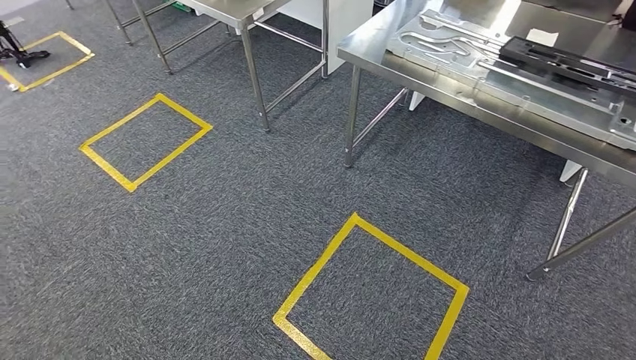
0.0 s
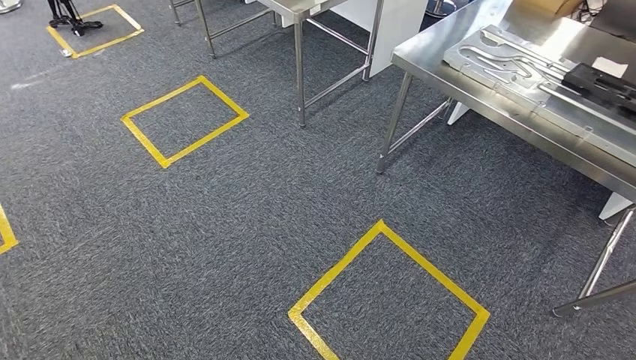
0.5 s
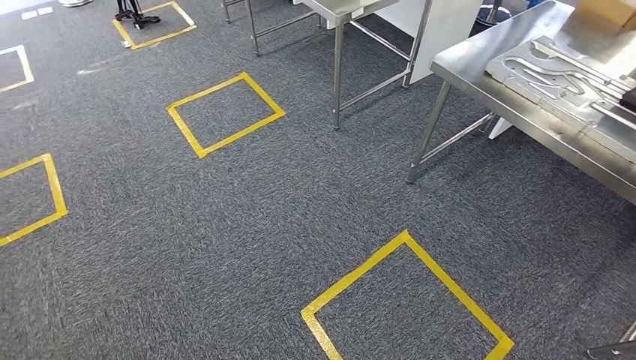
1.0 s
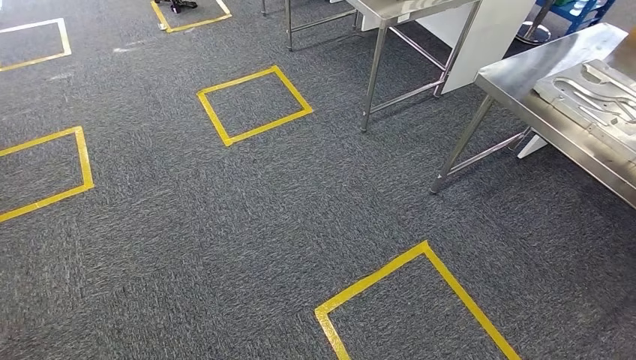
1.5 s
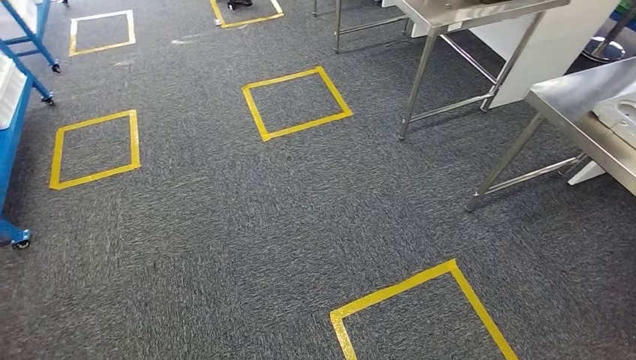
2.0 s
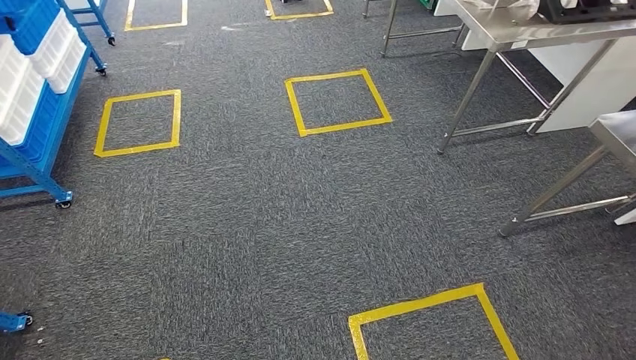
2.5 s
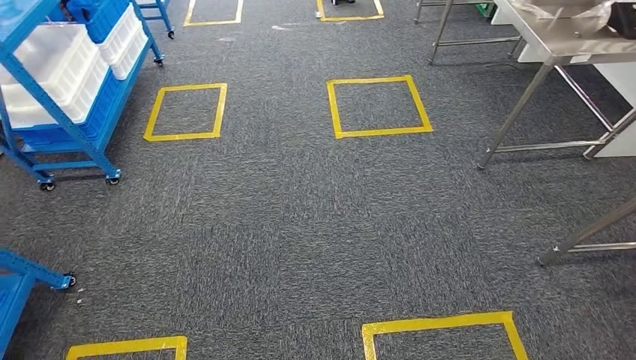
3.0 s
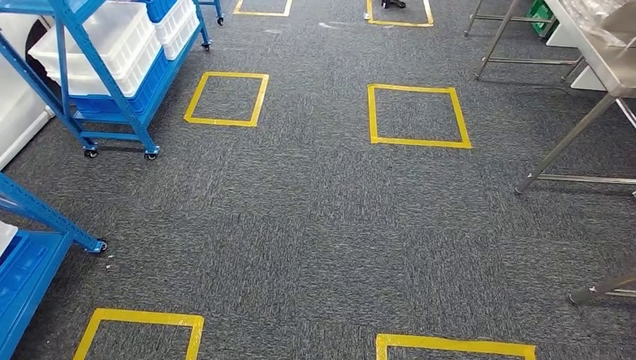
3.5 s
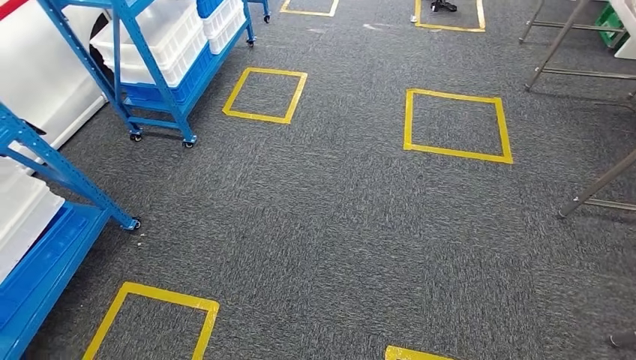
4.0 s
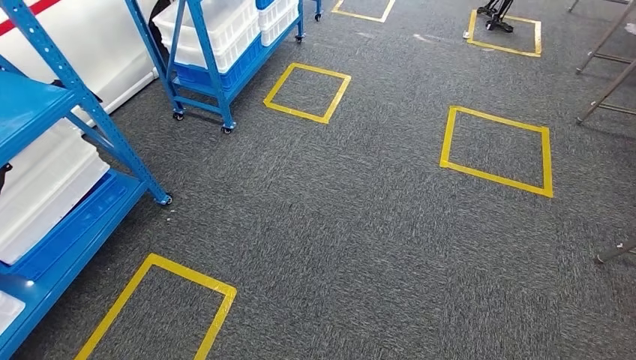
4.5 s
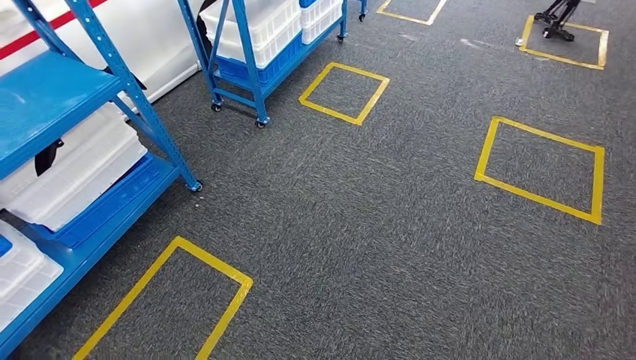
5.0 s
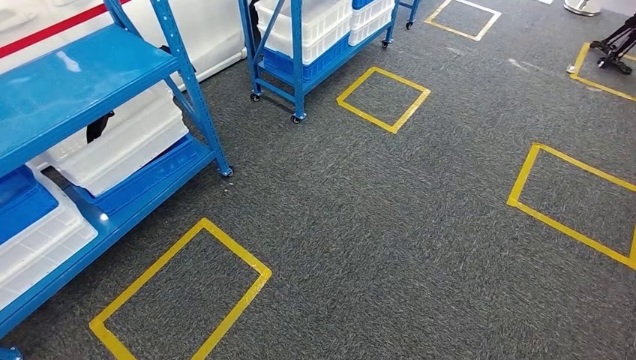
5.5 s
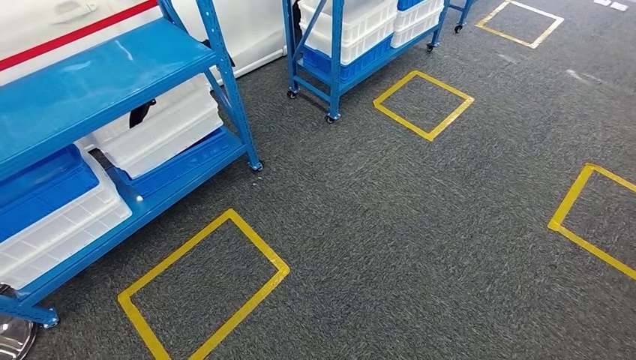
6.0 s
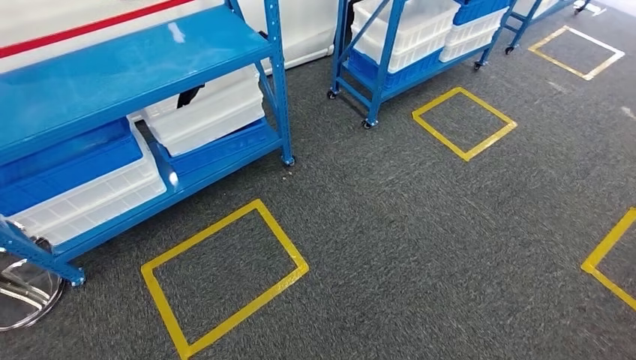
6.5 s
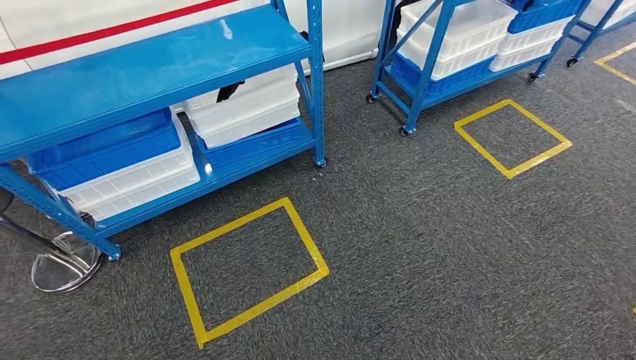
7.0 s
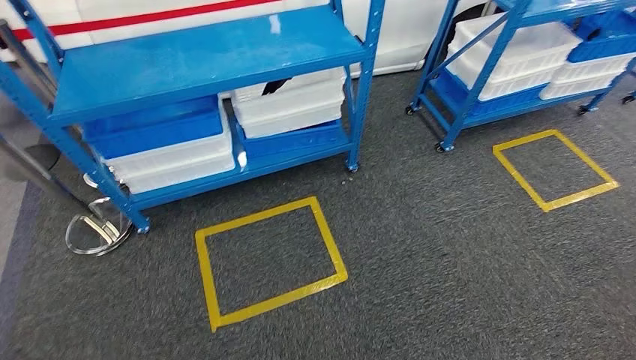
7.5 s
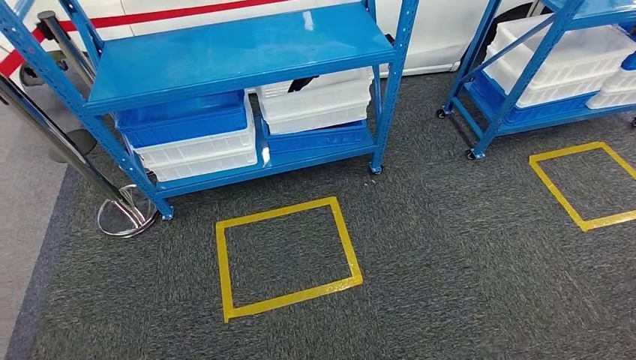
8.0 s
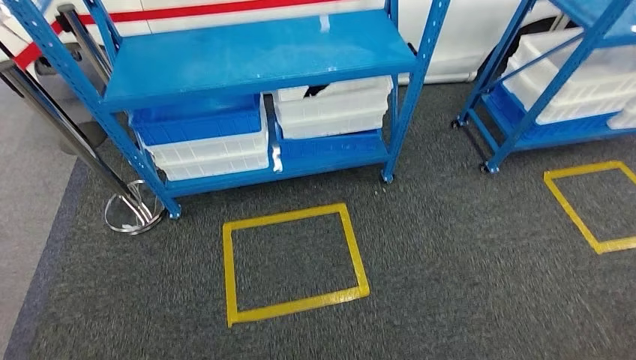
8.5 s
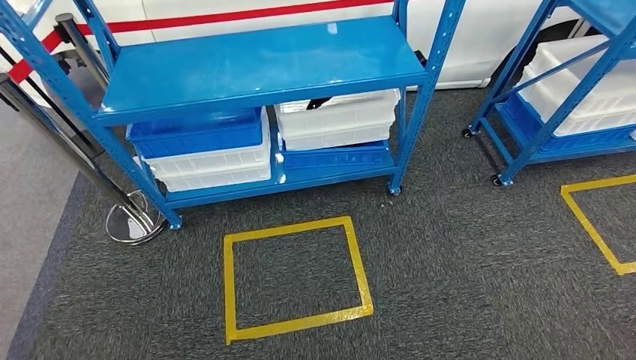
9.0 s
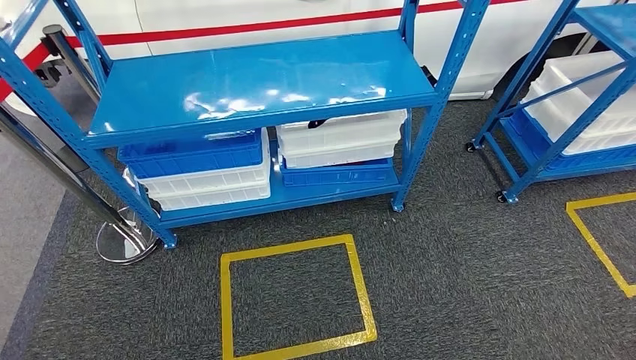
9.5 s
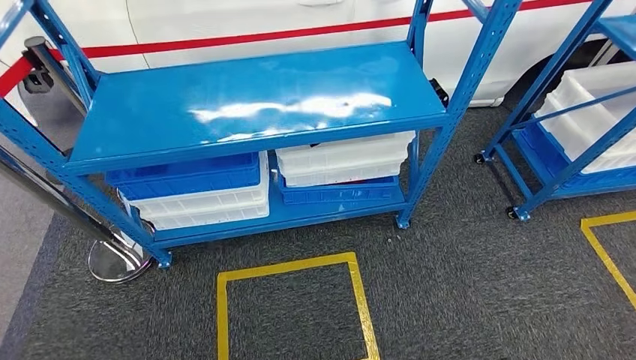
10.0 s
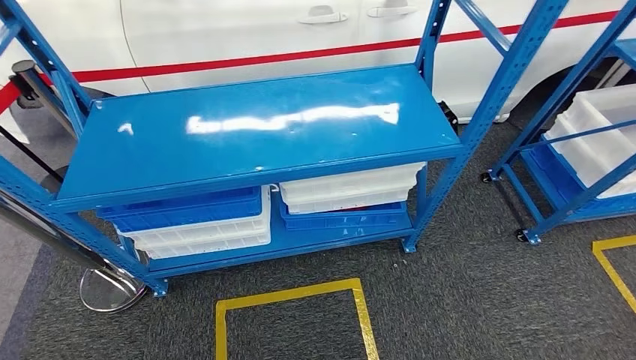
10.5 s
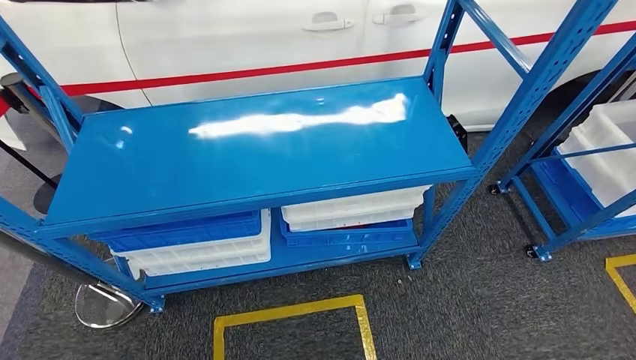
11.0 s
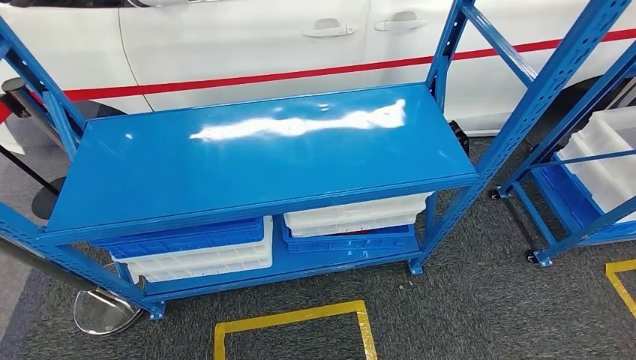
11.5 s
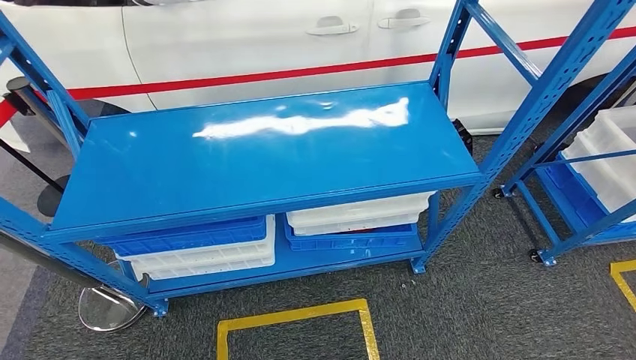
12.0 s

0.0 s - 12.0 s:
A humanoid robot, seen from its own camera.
Step, 0.0 s - 12.0 s: Move to the initial position of the shelf.

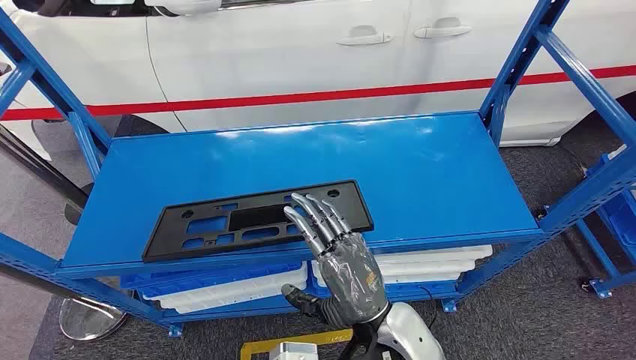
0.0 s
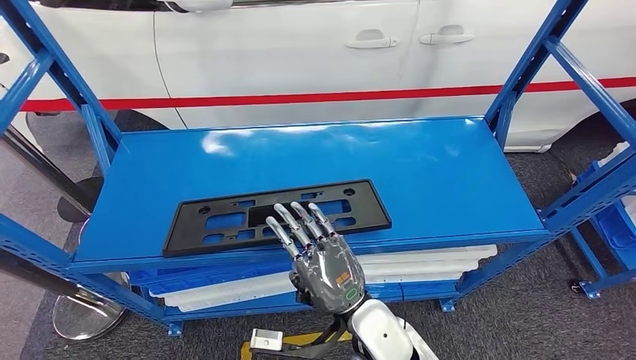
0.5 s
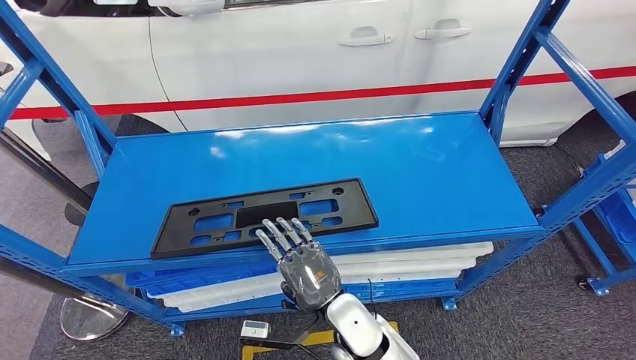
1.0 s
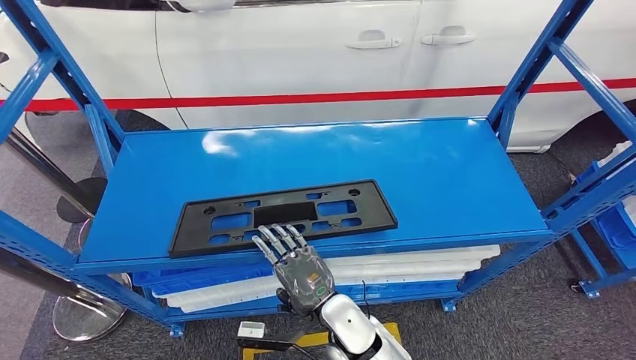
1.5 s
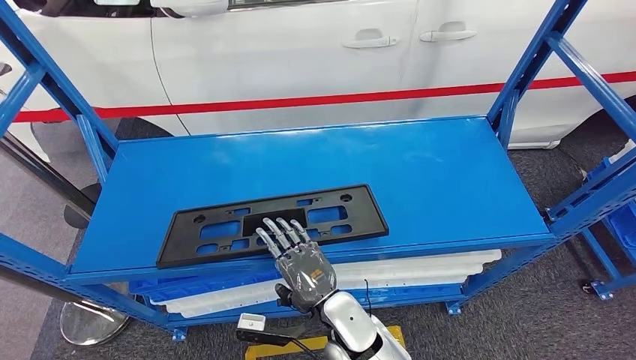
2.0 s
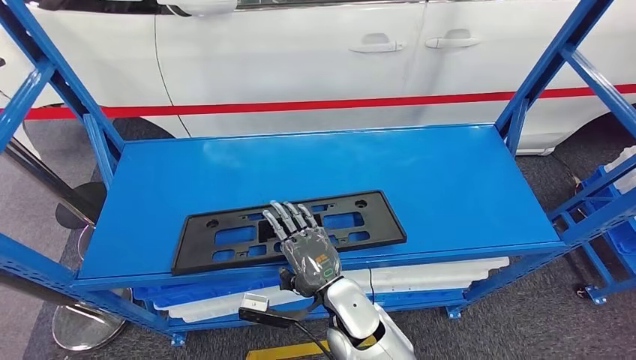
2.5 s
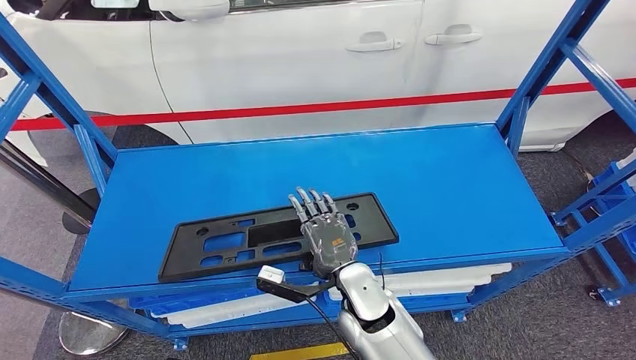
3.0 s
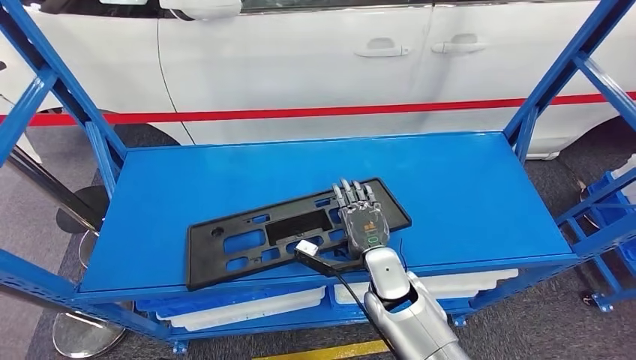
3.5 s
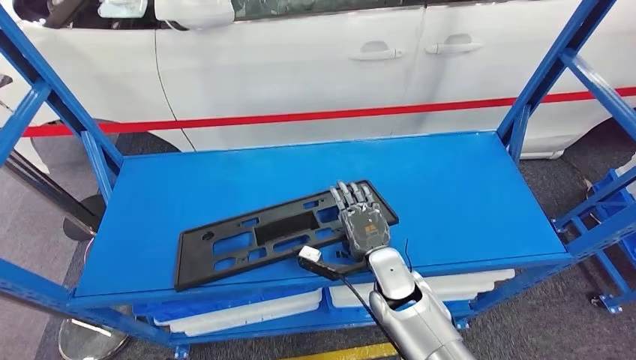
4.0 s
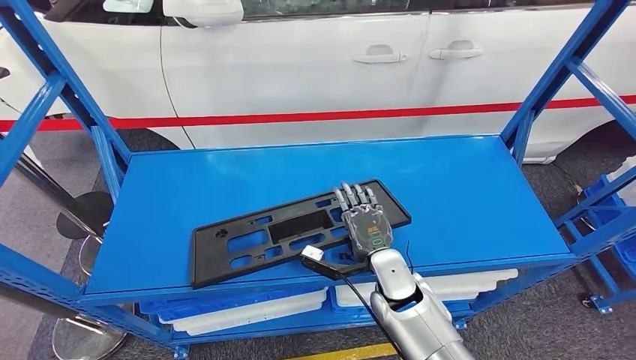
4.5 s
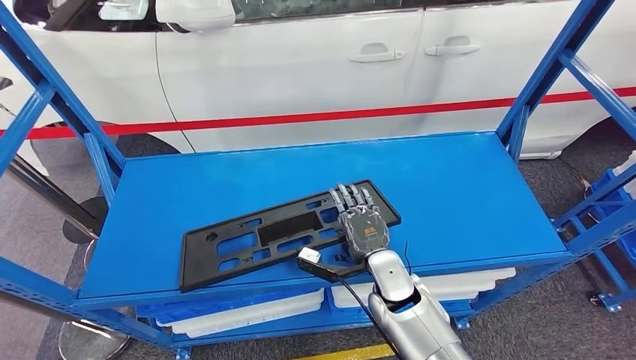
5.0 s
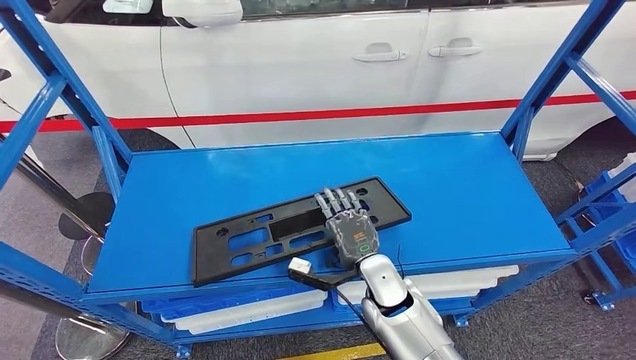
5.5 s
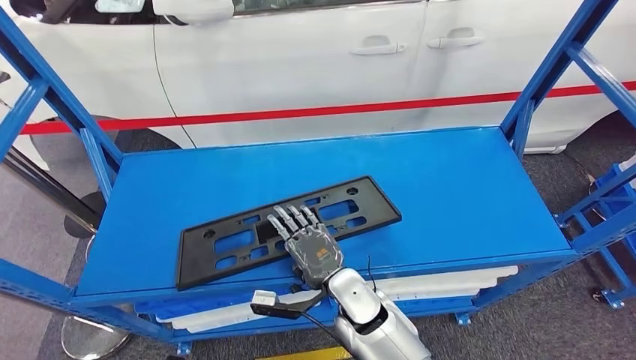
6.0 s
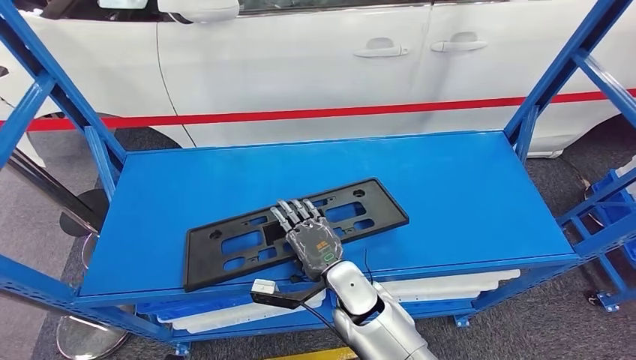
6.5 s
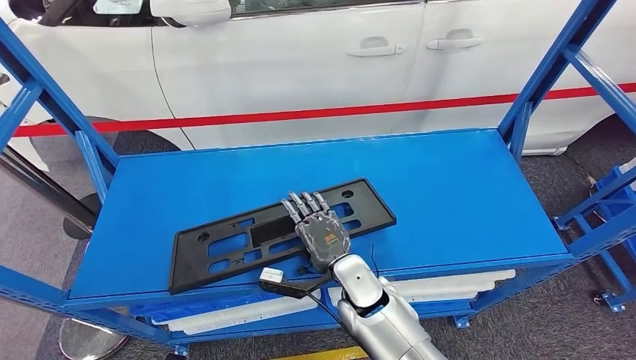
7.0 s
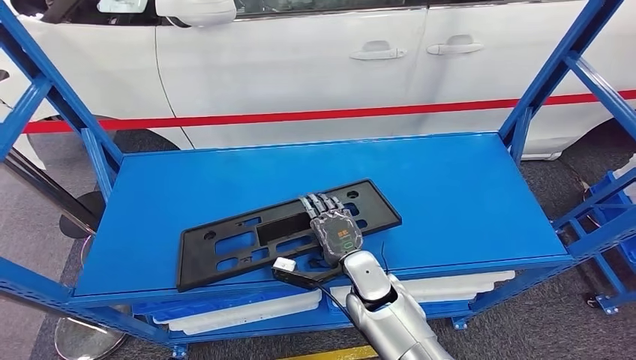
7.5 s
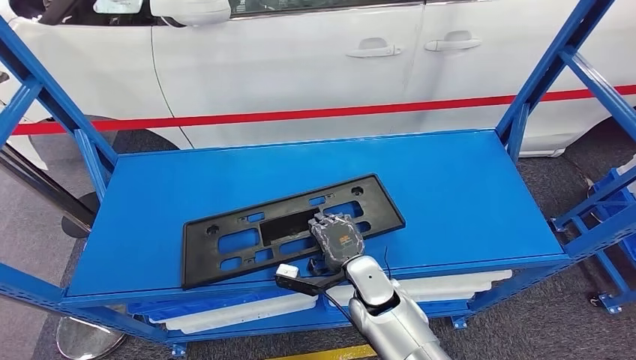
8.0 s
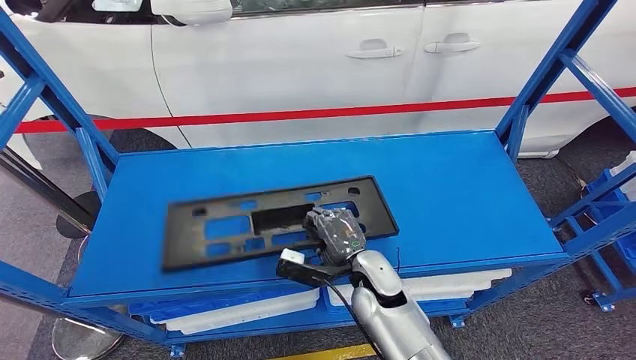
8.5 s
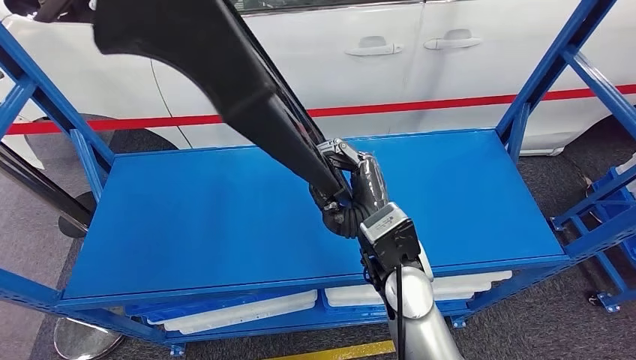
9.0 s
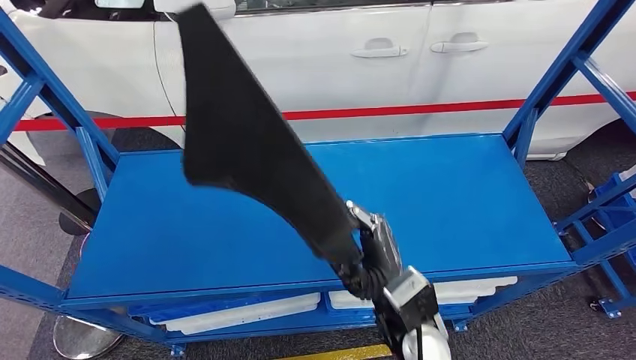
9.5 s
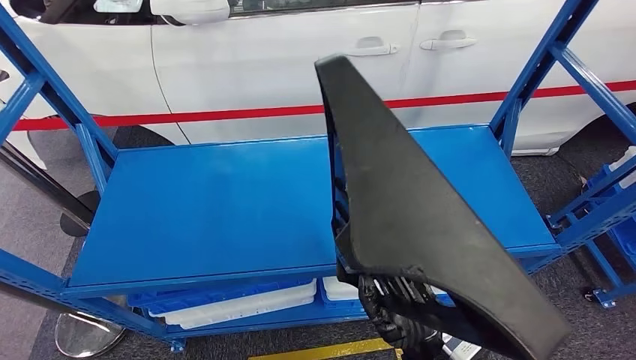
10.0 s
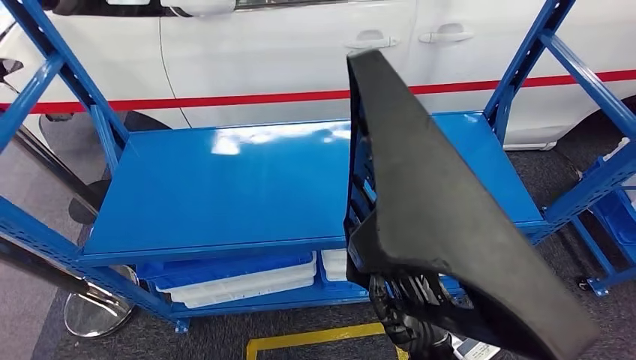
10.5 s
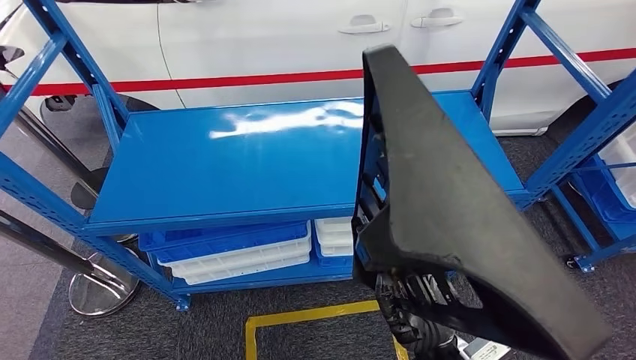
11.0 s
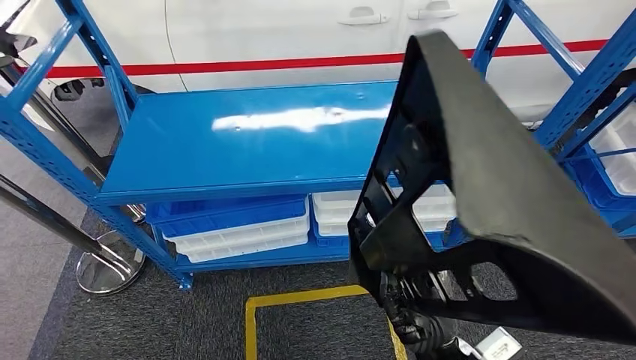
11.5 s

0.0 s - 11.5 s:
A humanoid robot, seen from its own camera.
Step, 0.0 s - 10.0 s: Pick up the large material from the shelf.
